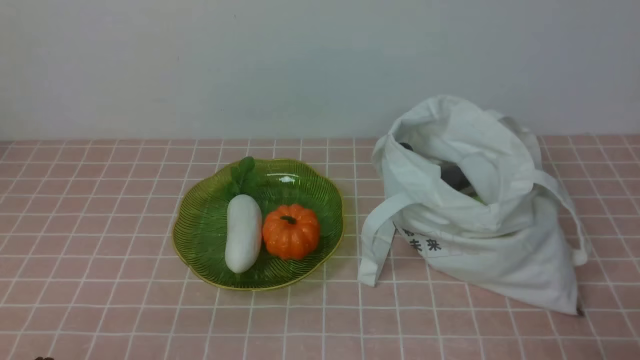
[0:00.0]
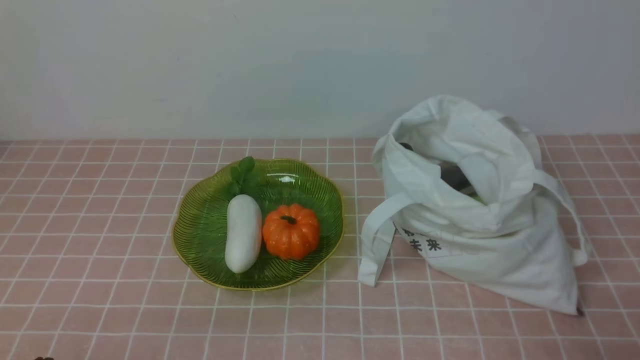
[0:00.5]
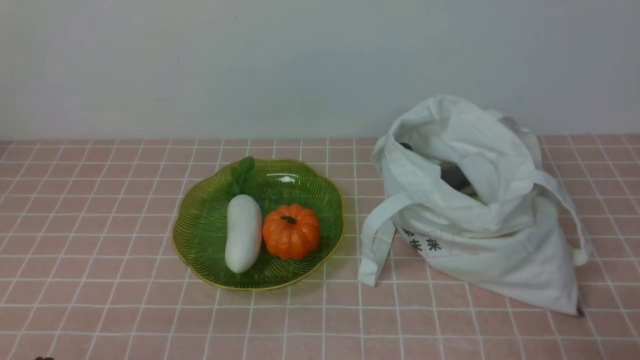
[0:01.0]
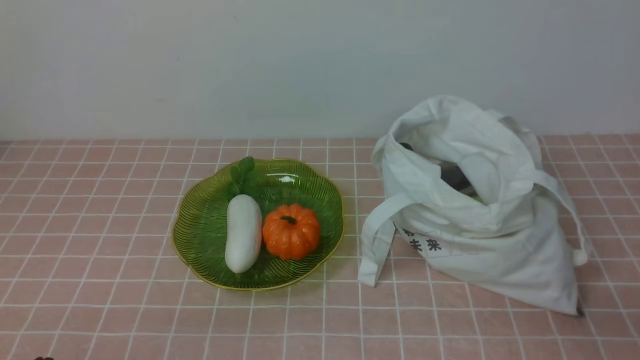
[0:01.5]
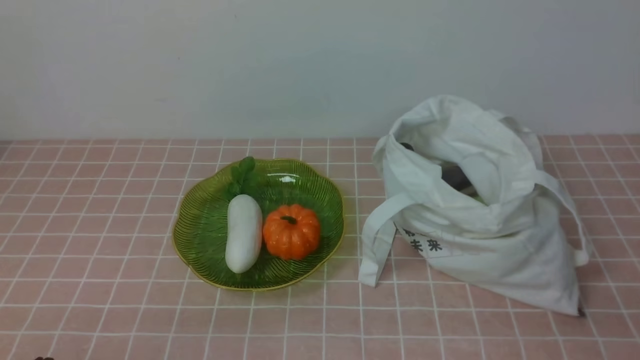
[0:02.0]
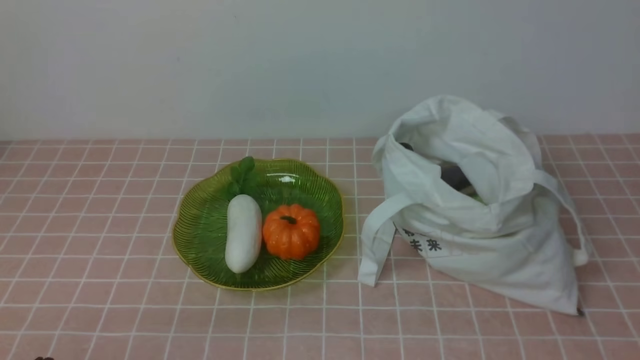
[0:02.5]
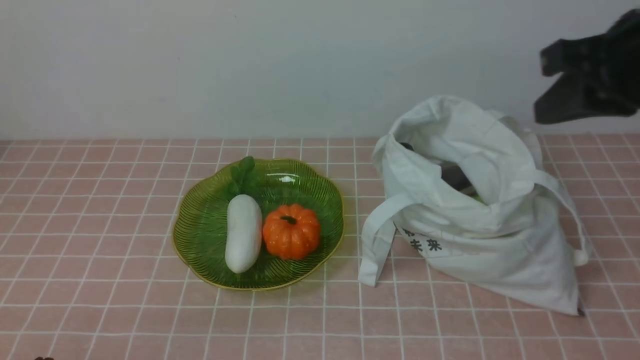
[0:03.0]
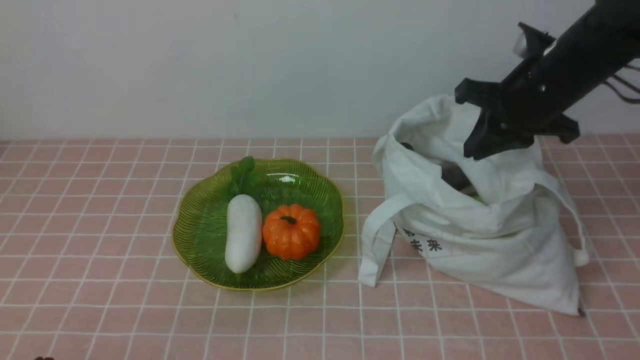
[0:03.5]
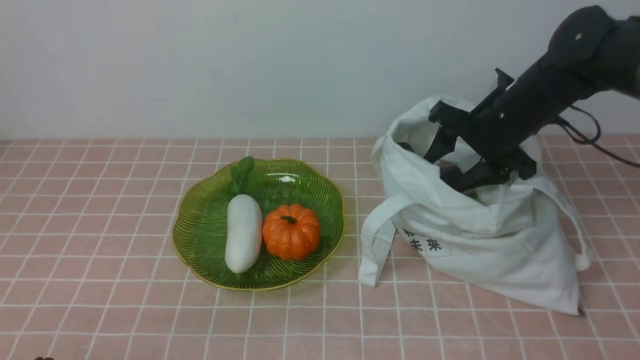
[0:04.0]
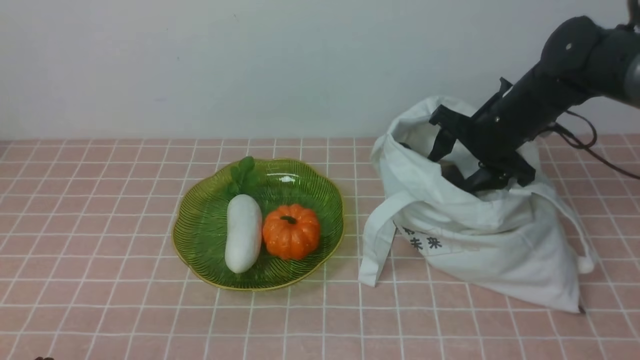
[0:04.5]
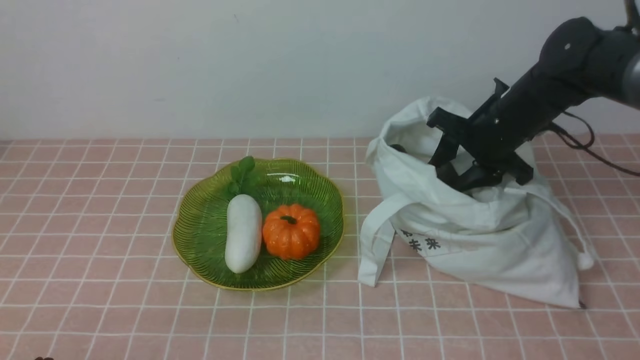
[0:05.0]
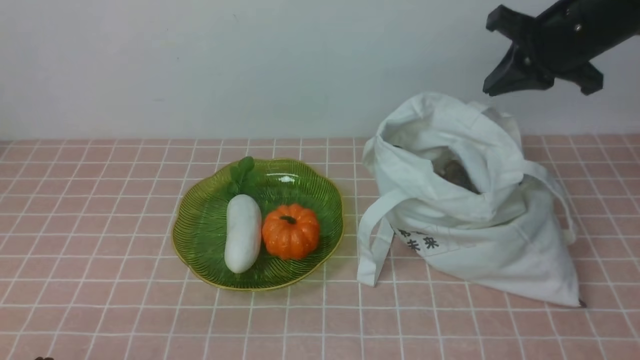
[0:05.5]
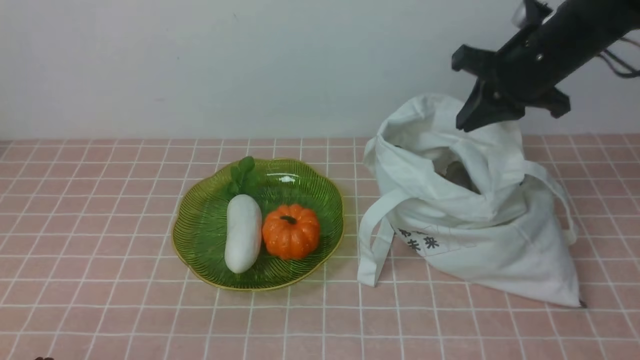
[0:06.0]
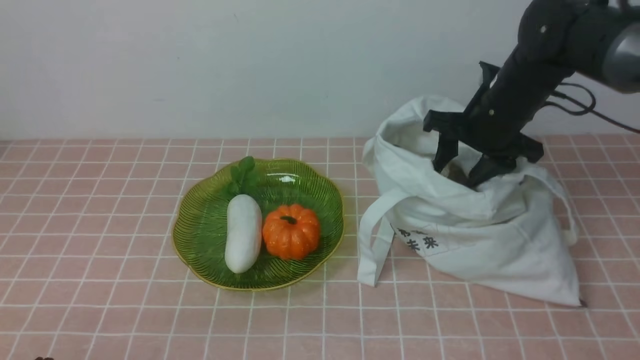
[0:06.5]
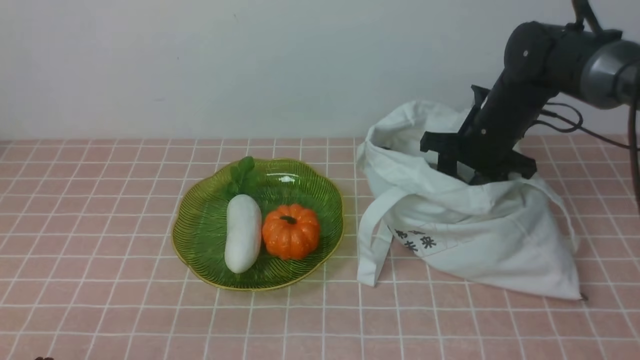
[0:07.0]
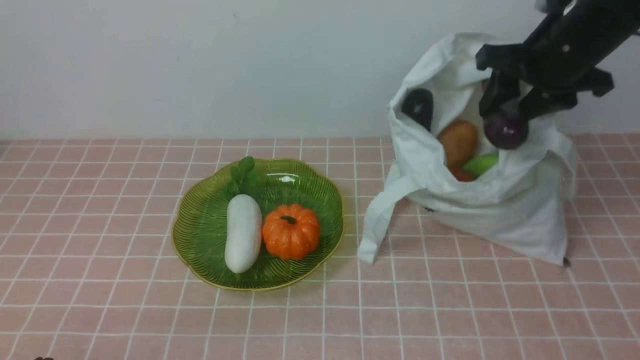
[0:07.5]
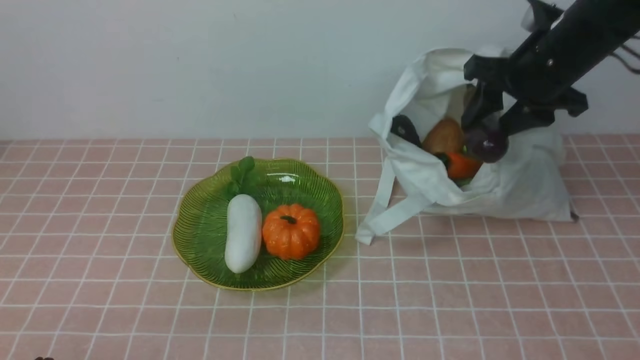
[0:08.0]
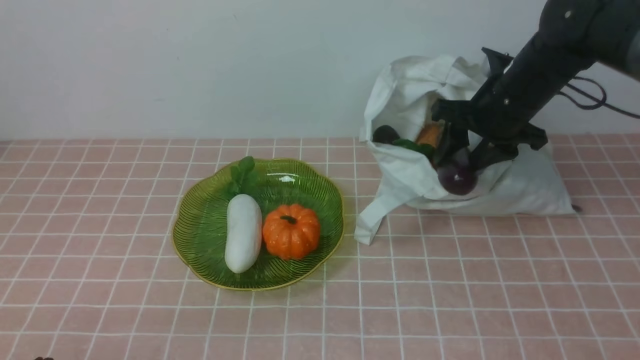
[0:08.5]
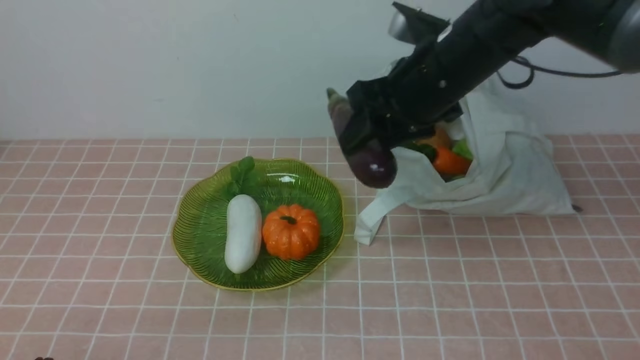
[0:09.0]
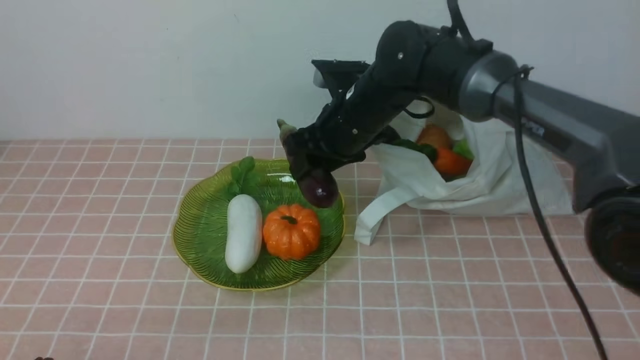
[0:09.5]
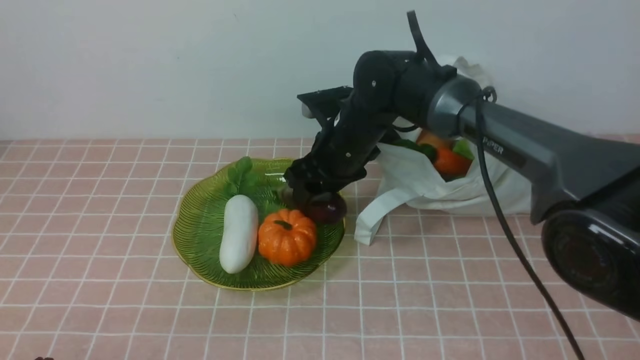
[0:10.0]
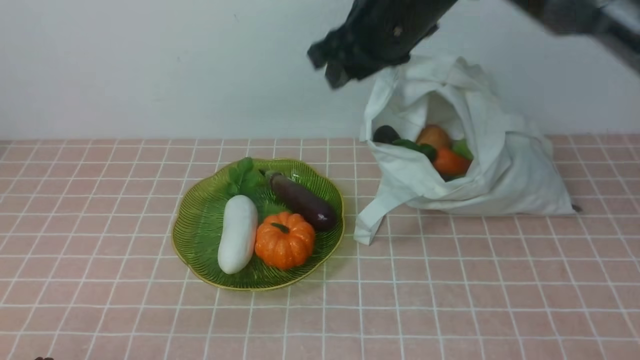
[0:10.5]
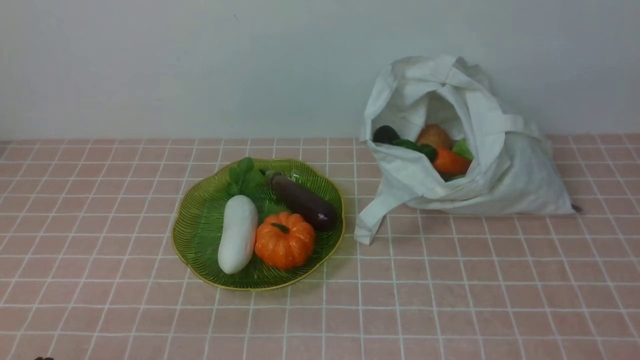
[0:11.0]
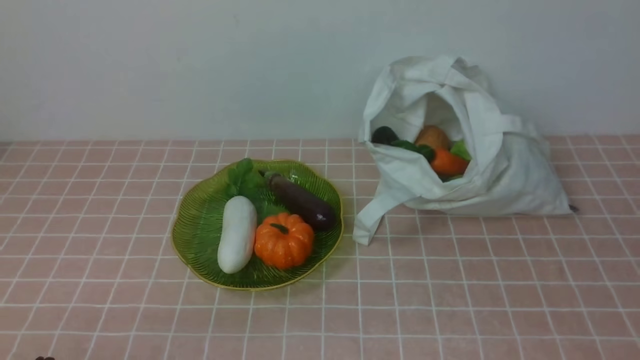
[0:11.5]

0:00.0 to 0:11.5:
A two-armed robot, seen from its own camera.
Task of the whole recording: take vegetables from bag on pink coffee tablecloth place on plate.
Step, 0:00.0 to 0:07.0: Grasp the eggplant with right gripper.
Step, 0:07.5 to 0:10.0: Place the eggplant on the plate with right gripper.
0:02.0 to 0:04.0: The right gripper shifts about 35 cm forward, and opens its fingers.
0:04.0 to 0:06.0: The right gripper goes roughly 10 cm upward, and closes its fingers.
0:06.0 to 0:07.5: The right gripper goes downward and returns, roughly 10 cm each way, and opens up.
0:07.5 to 0:09.5: The right gripper moves to the left, about 20 cm.
0:09.5 to 0:11.5: The right gripper moves backward and to the right, approximately 50 cm, and closes its fingers.

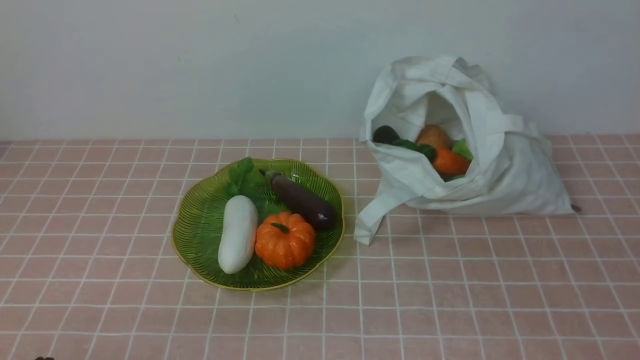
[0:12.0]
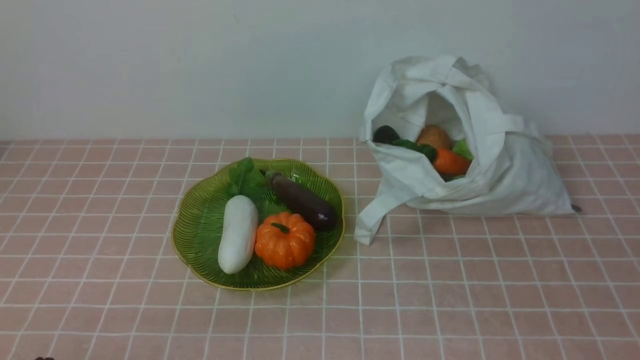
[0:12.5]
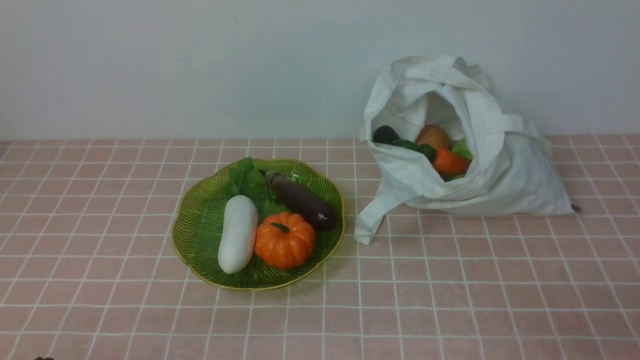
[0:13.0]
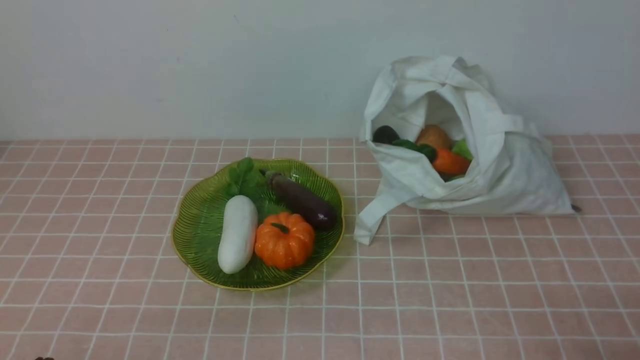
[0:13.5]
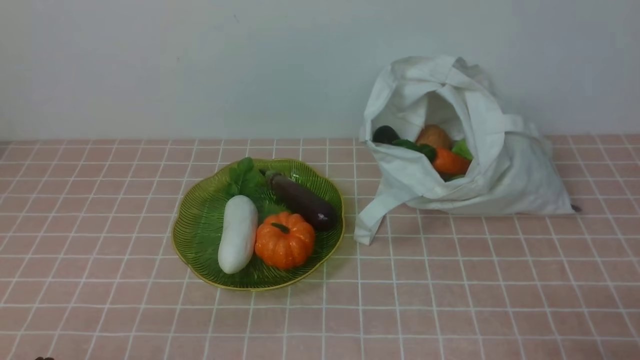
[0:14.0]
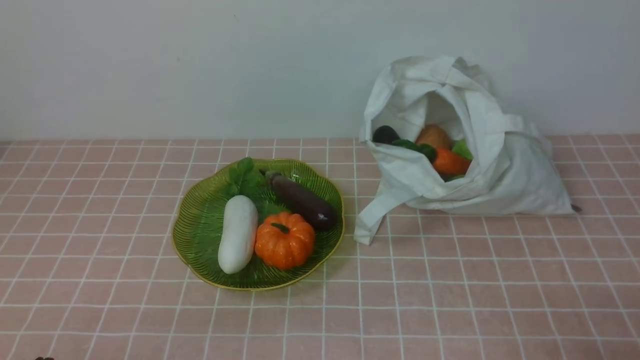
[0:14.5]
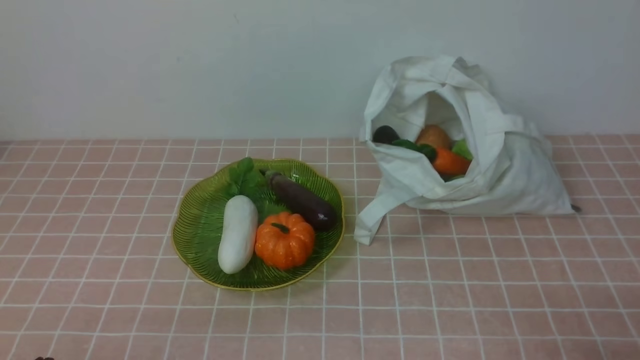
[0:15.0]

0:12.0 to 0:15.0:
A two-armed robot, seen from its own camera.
Task of the whole recording: take vegetables from bag on pink coffee tablecloth place on plate.
0:13.5 to 0:15.0: The two grippers keep their place.
